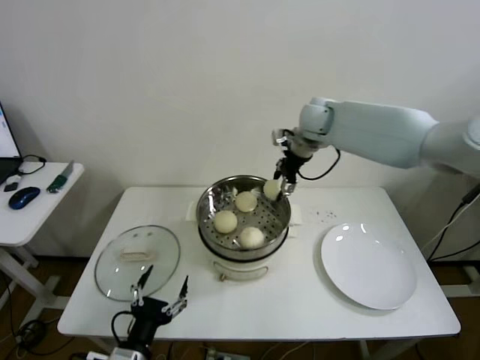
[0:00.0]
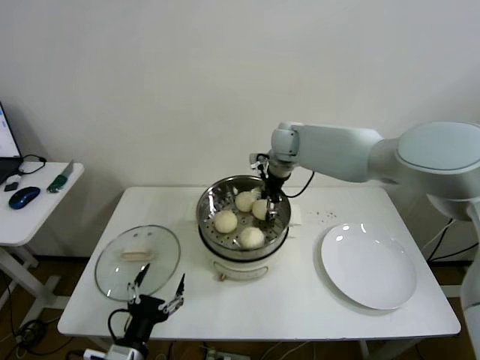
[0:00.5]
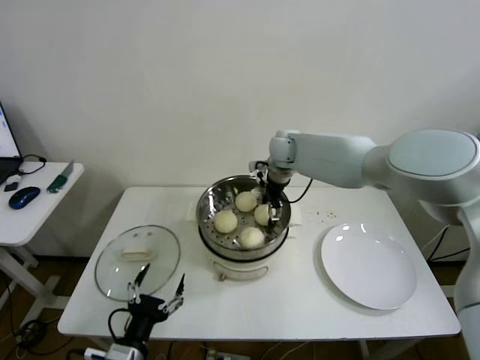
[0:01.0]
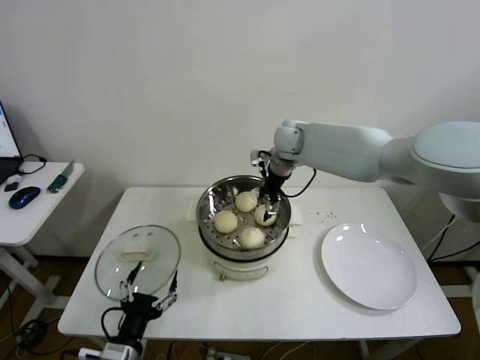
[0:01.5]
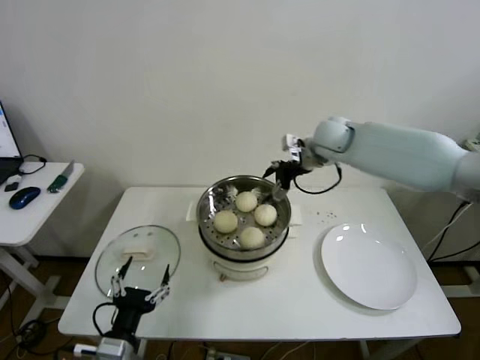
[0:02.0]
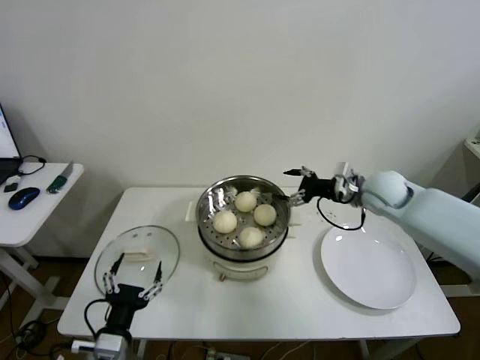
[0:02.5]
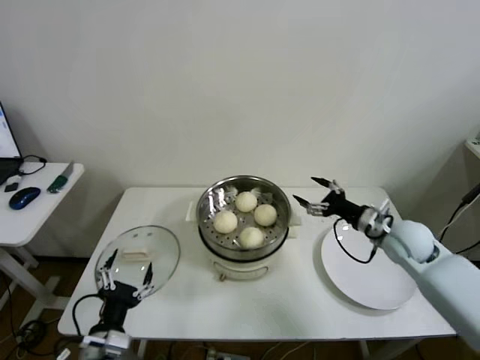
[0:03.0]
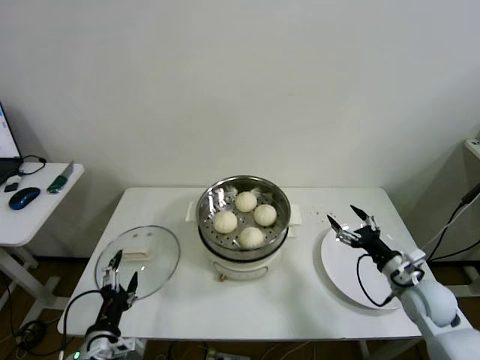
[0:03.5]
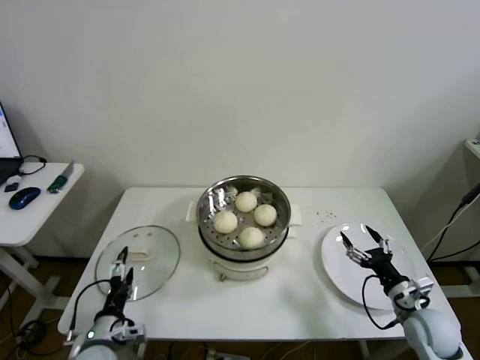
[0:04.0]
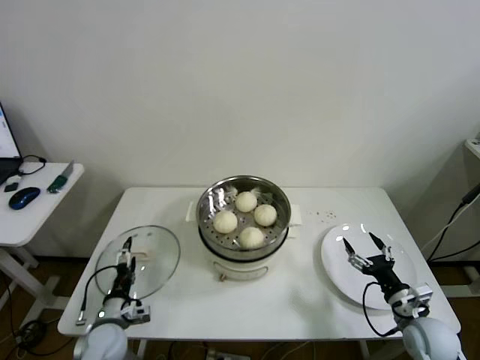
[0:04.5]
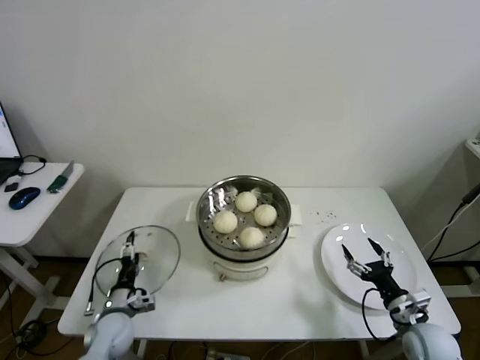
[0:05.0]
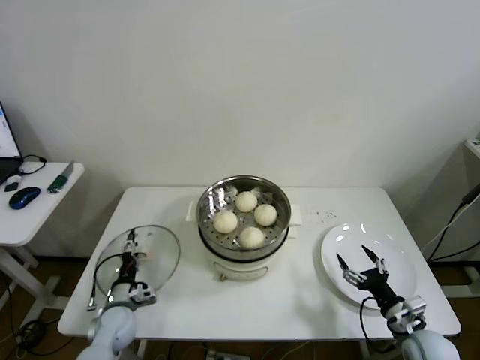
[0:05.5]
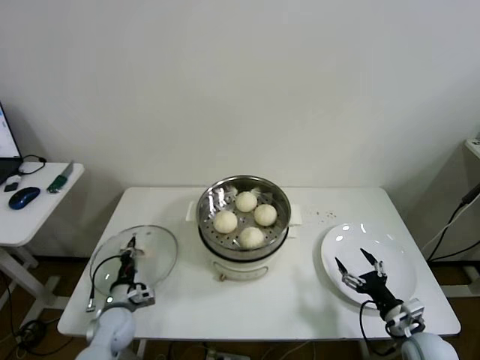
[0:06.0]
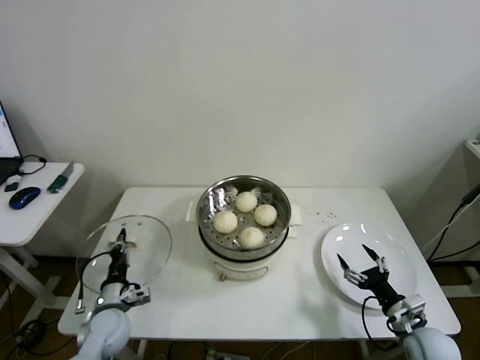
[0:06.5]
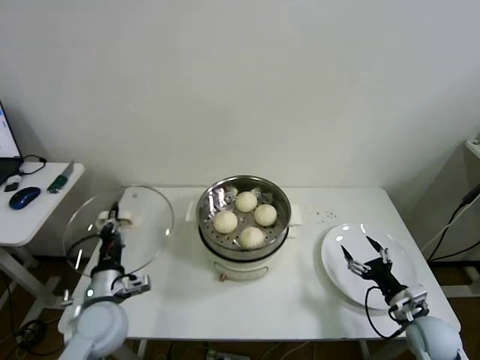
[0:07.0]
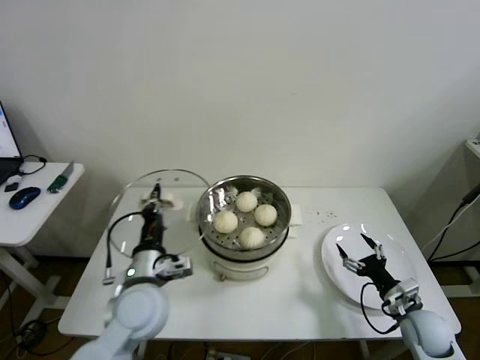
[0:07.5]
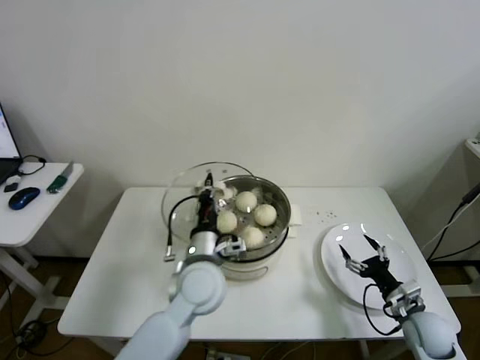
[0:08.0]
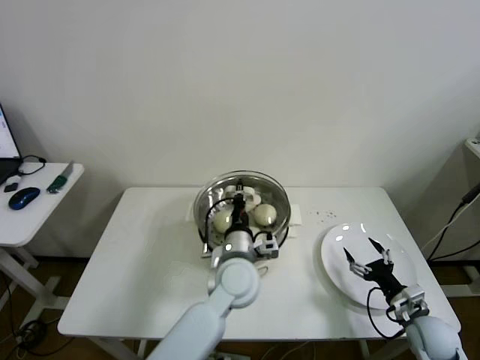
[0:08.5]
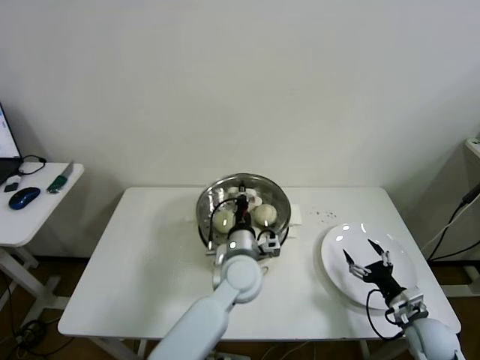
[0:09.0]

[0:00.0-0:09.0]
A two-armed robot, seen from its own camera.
Step, 0:01.0 to 0:06.0: Grasp the pot lid with left gripper.
0:00.0 to 0:02.0: The right gripper travels to the left and back again, roughly 5 cm each way, and opens its fingers.
0:02.0 to 0:04.5: The right gripper heads backward, downward and to the right, covering roughly 50 cm. Meanwhile the left gripper is displaced forward, downward and to the left by about 20 cm.
0:04.5 to 0:07.0: The left gripper heads upward, covering about 10 cm, and closes.
0:07.0 to 0:09.0: The left gripper heads to the right, covering approximately 30 cm.

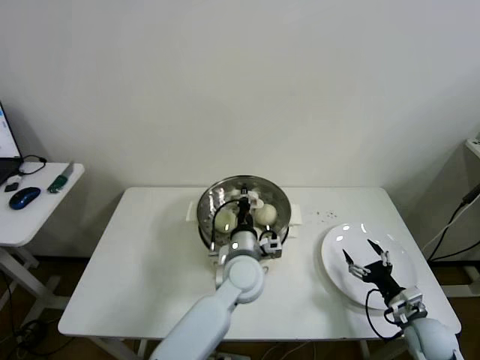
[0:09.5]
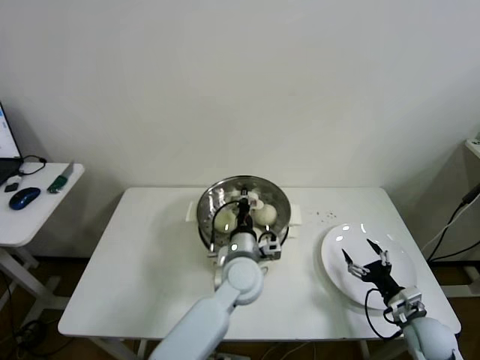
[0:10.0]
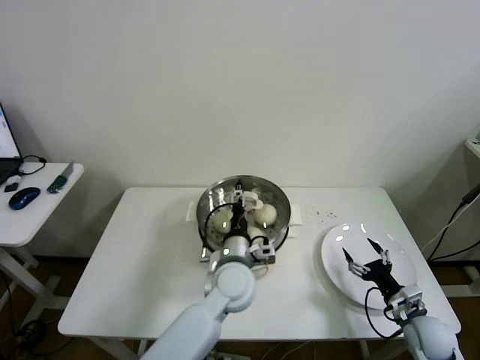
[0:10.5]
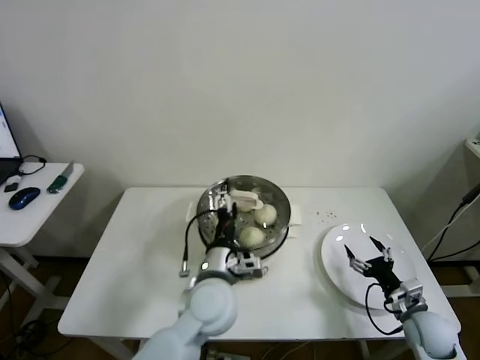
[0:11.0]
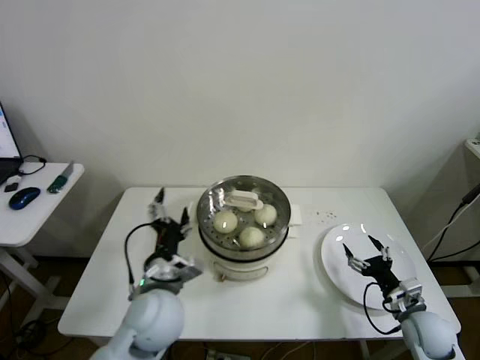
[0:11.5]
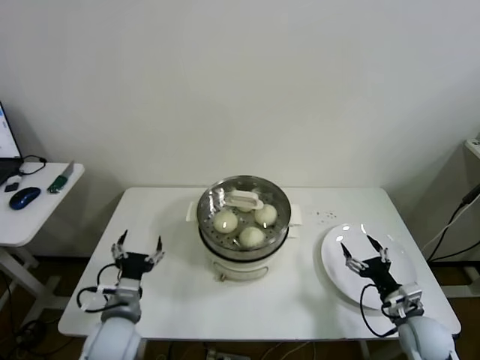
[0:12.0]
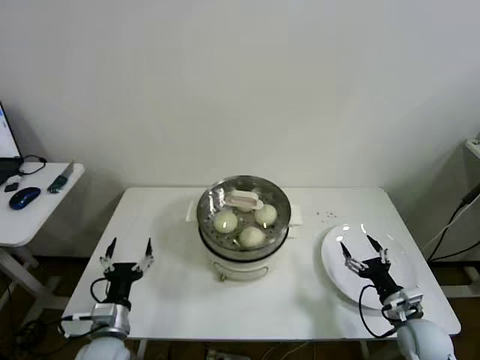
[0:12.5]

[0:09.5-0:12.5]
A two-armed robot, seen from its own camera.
0:09.5 to 0:11.0: The left gripper shifts some 5 cm backward, and opens its fingers.
0:11.0 to 0:12.5: The left gripper travels to the left and downward by about 25 cm.
